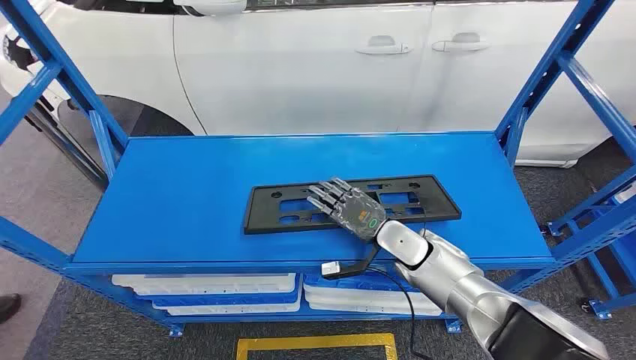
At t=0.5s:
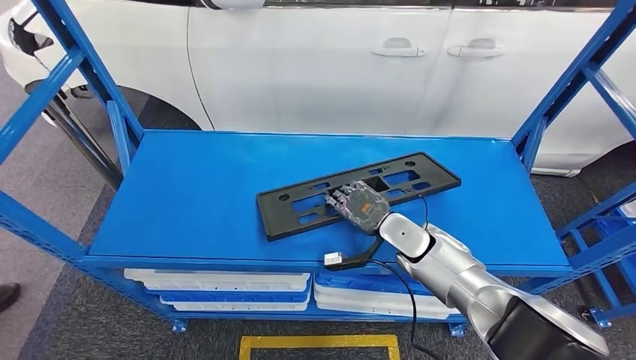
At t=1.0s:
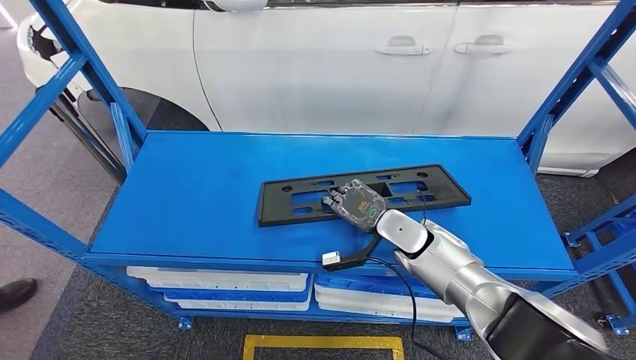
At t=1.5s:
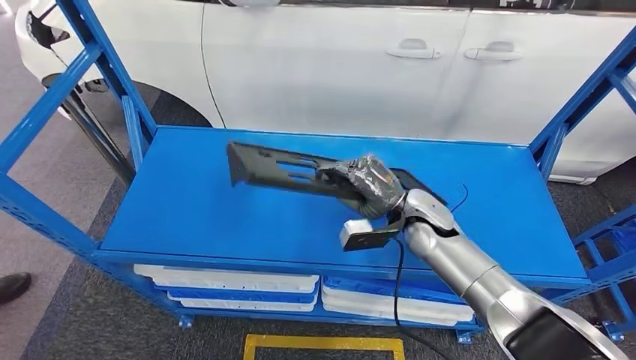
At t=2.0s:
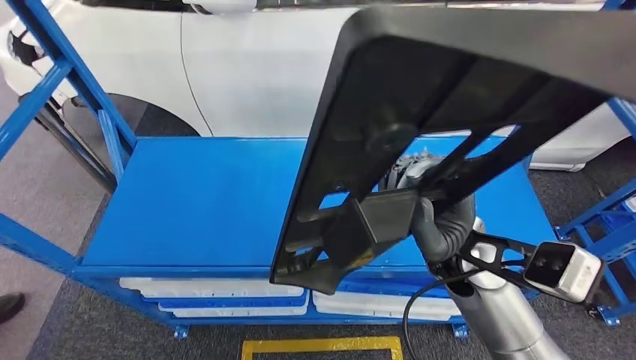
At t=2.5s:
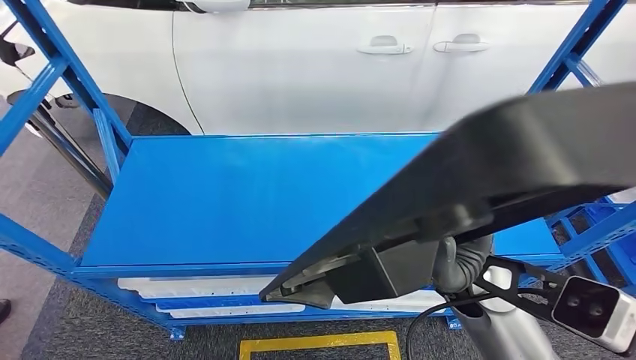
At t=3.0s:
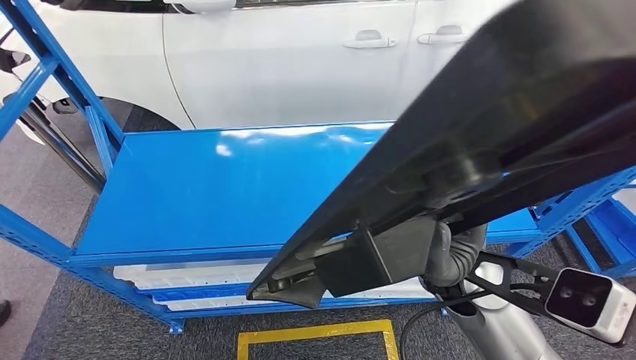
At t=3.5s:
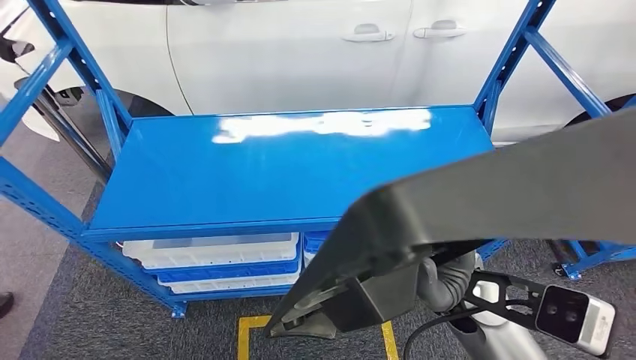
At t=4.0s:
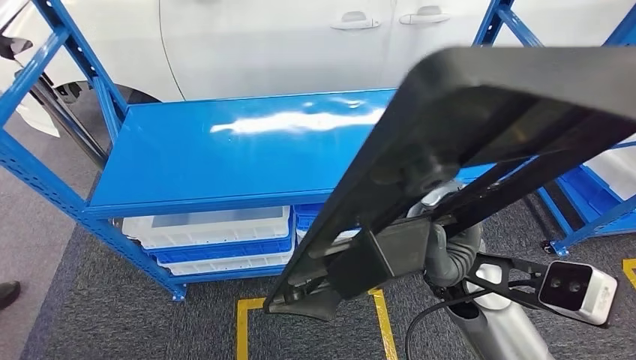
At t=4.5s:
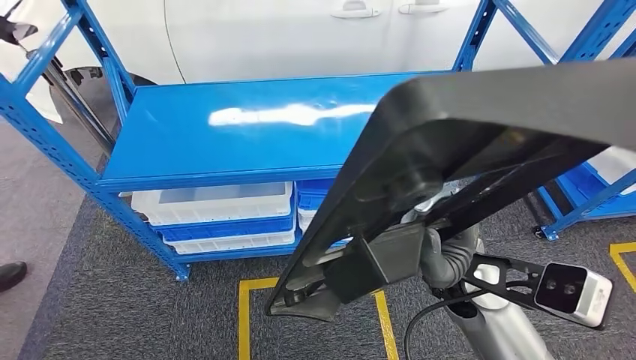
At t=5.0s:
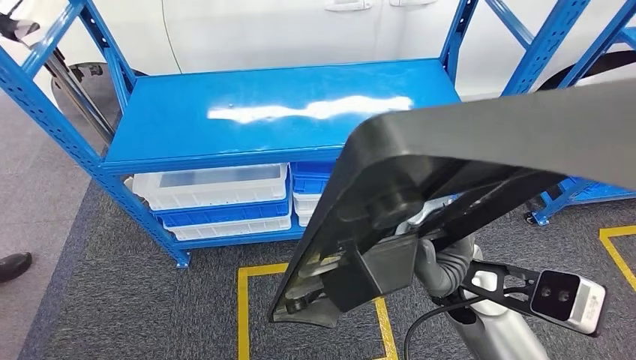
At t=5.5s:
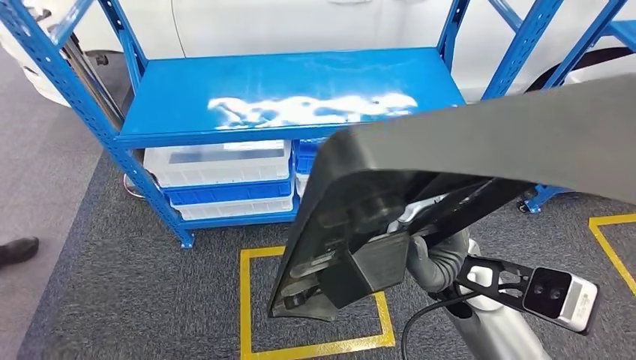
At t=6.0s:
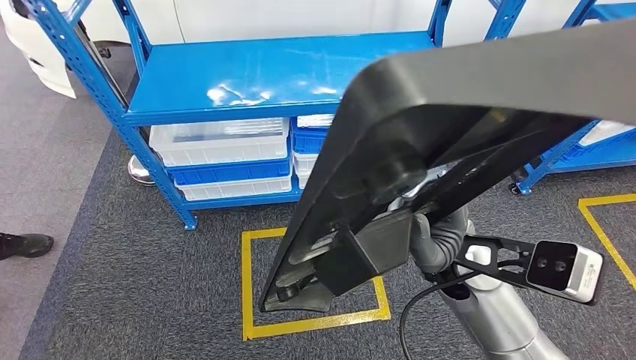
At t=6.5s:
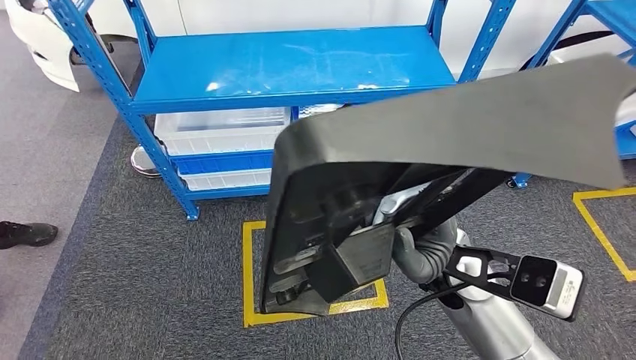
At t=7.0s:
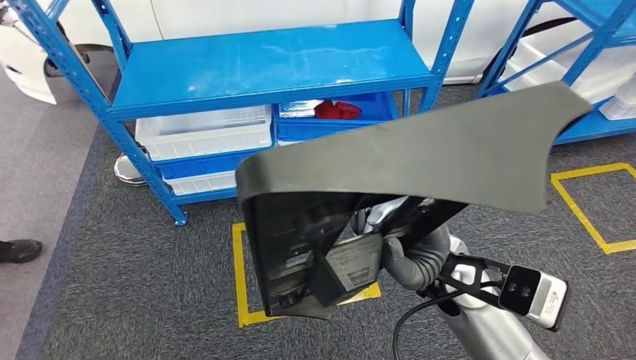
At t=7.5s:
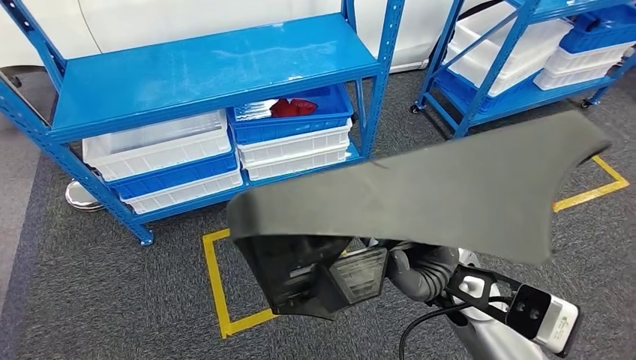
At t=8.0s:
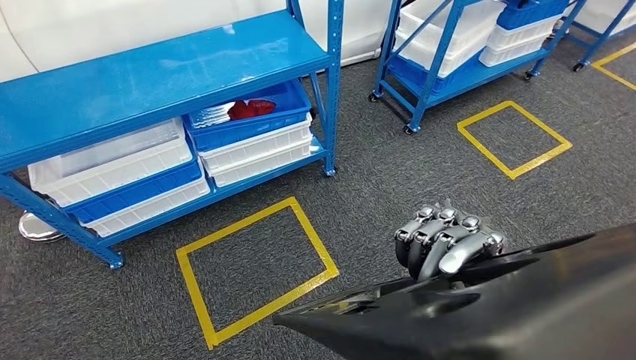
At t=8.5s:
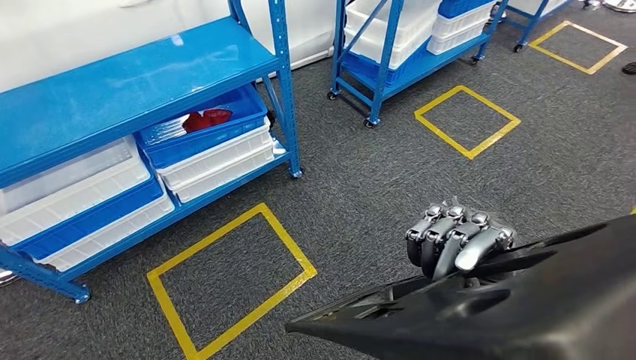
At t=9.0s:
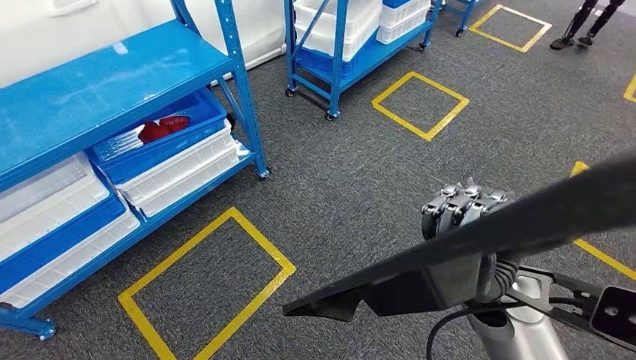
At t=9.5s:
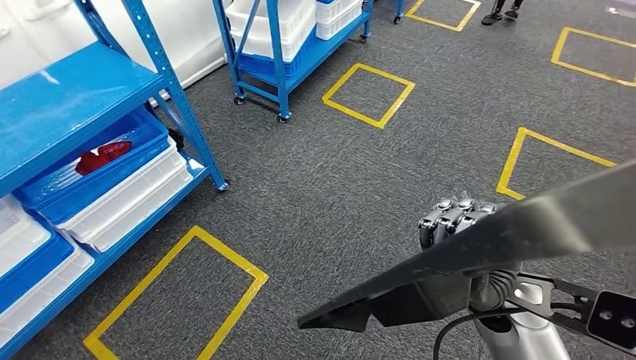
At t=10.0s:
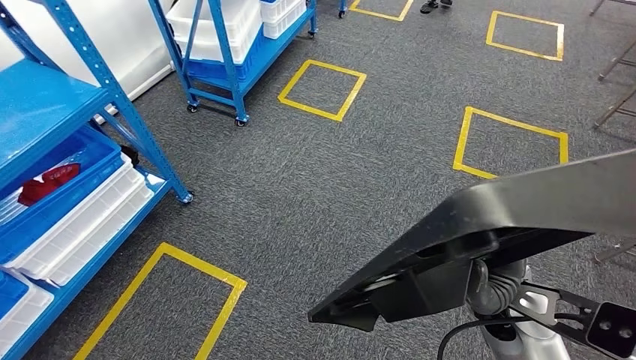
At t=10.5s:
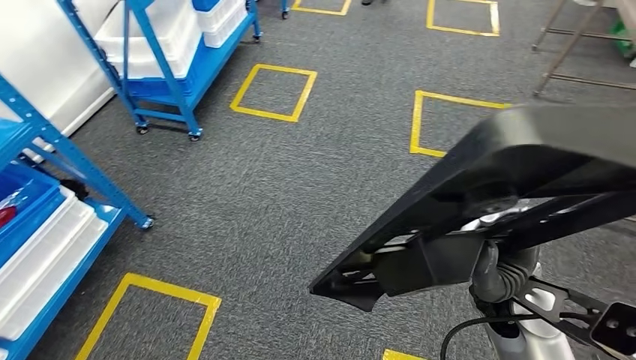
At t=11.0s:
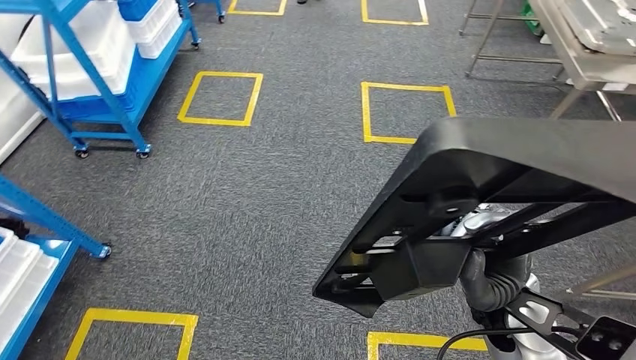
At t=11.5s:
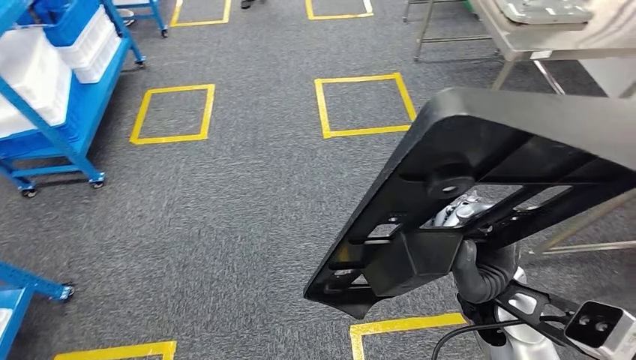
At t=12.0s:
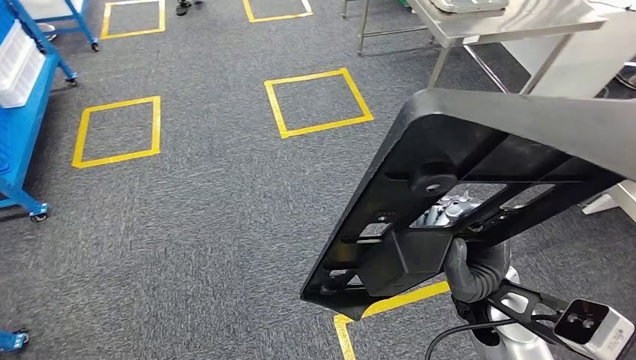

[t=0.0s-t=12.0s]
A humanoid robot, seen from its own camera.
Step, t=0.0s to t=2.5s: Pick up the large material from the shelf.

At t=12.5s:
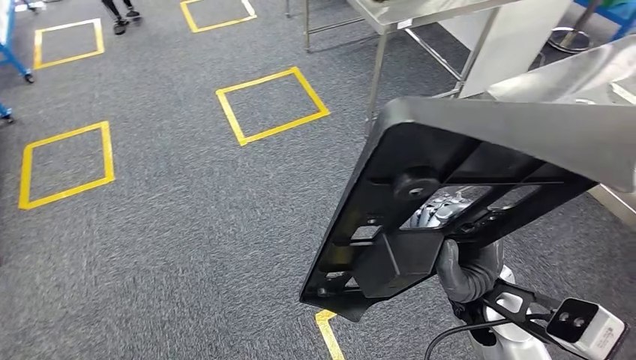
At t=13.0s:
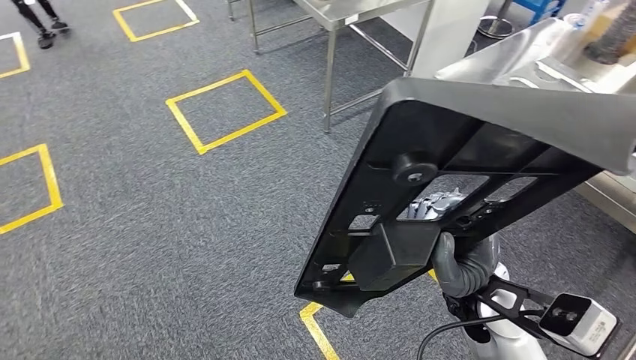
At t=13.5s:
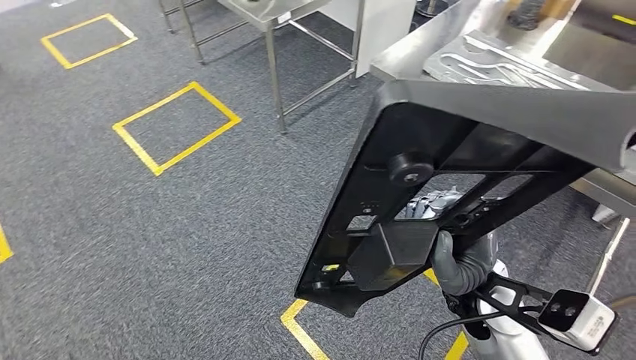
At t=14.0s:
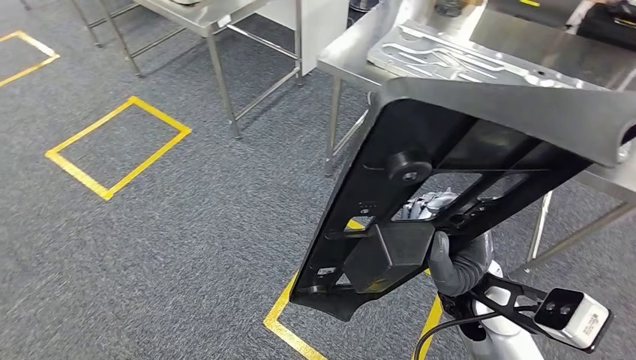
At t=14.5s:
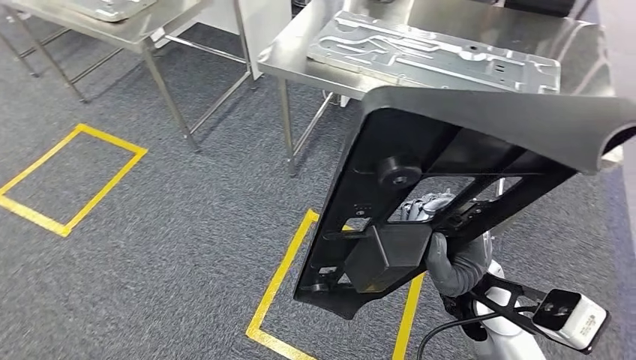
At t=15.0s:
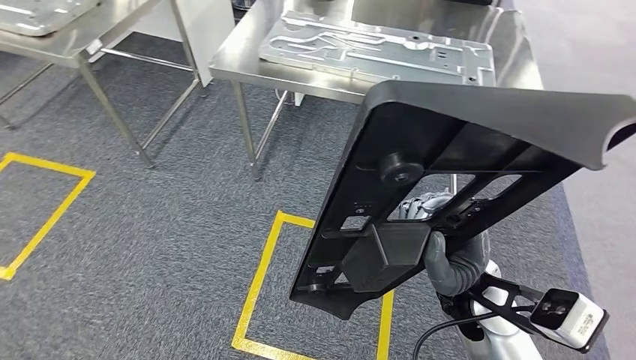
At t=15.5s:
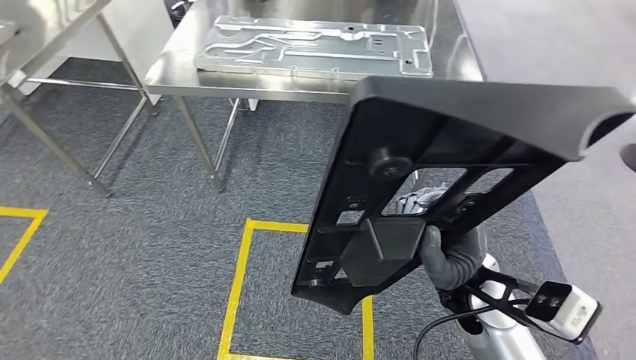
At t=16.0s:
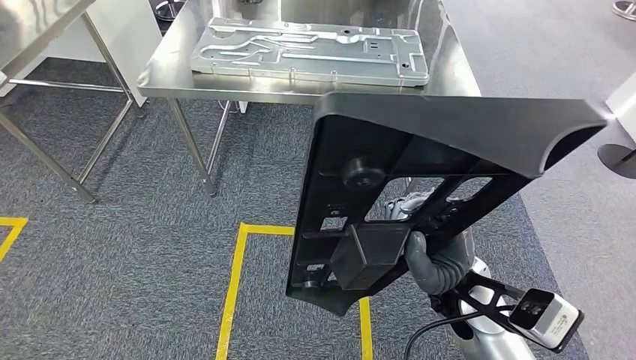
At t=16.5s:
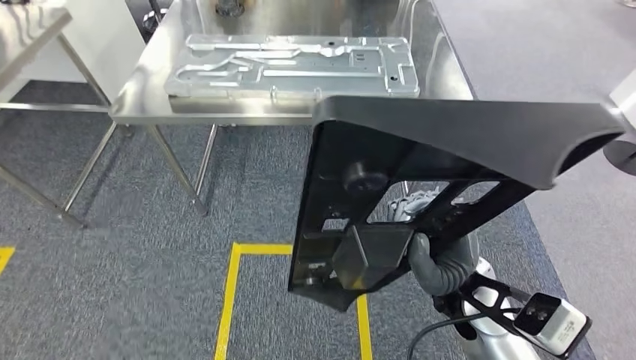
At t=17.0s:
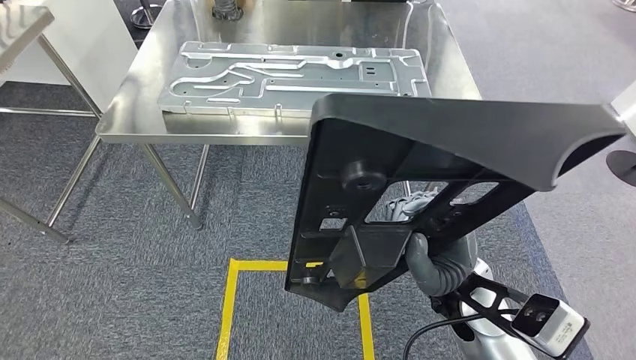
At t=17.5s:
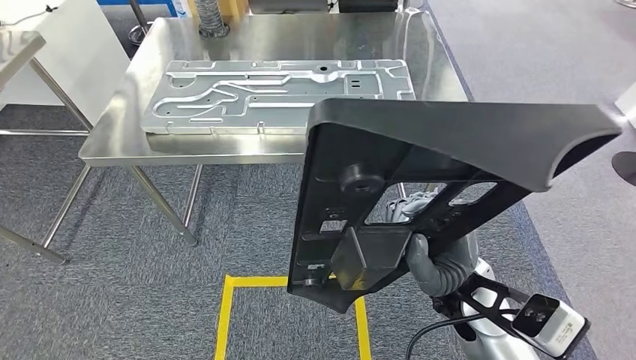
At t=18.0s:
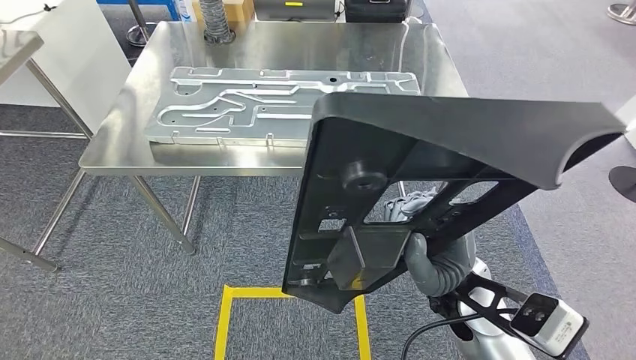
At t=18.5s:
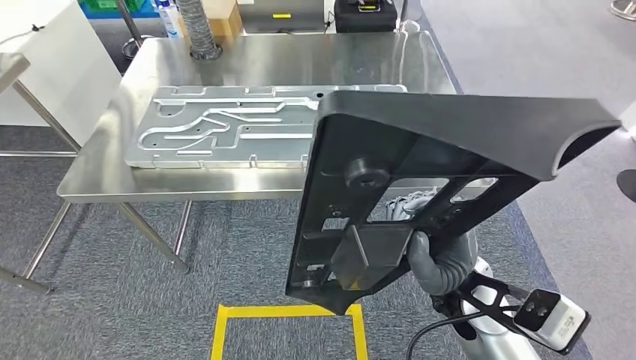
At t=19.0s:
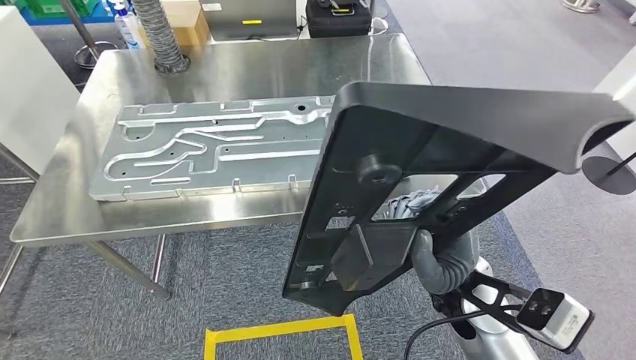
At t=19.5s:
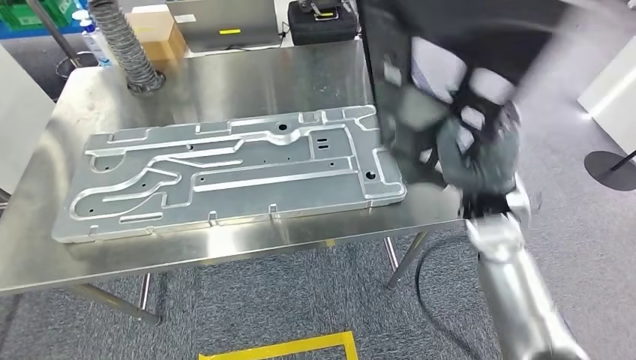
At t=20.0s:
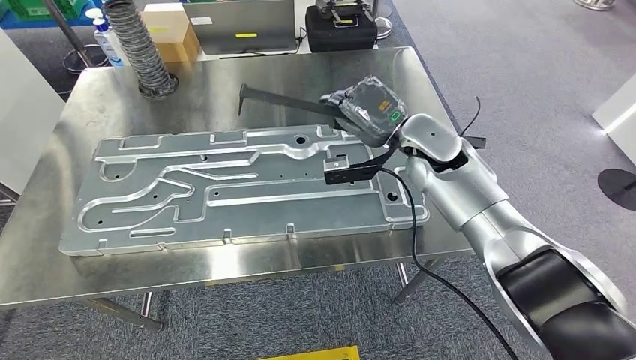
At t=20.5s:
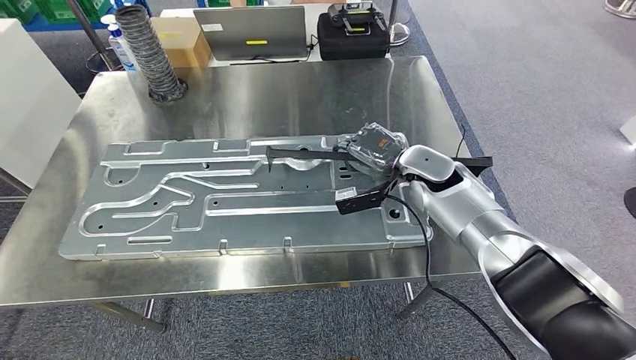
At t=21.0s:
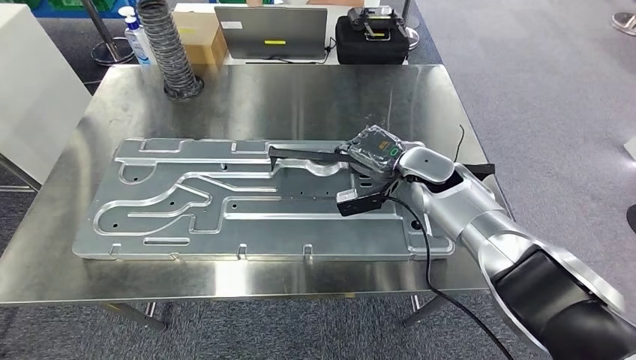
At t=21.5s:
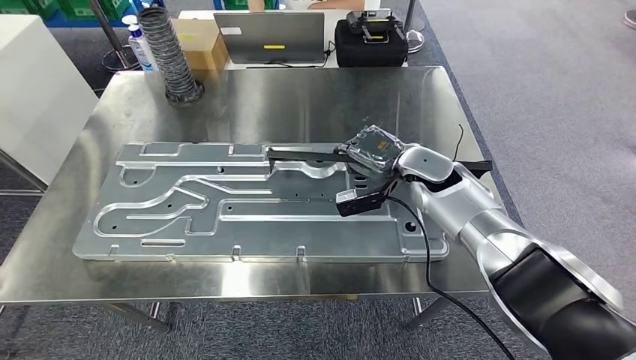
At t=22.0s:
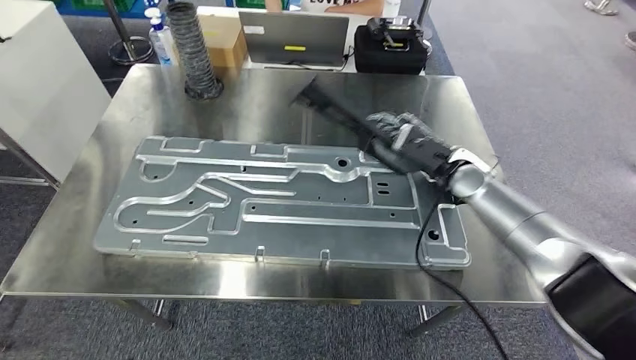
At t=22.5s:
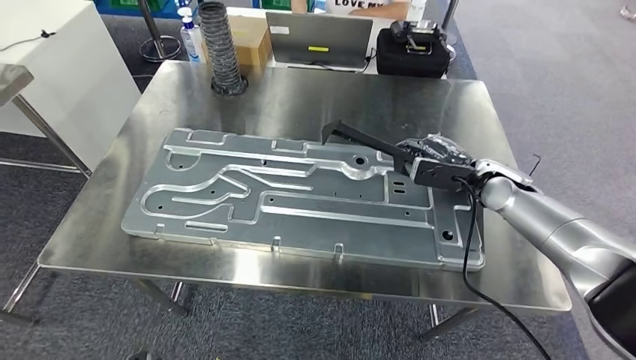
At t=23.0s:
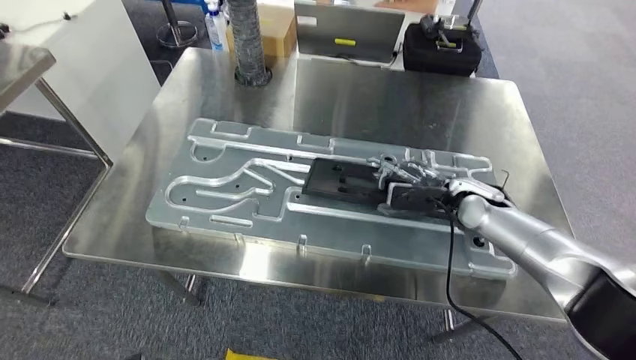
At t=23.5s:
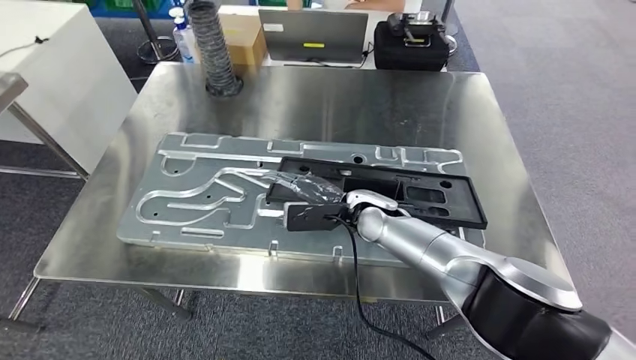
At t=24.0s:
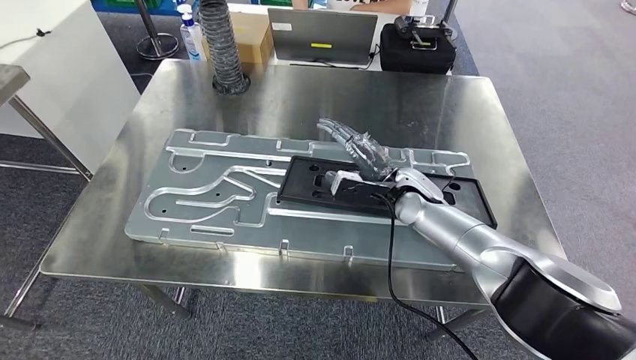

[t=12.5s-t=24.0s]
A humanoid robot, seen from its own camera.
Step, t=12.5s to t=15.0s: Move the large material to the workbench.
